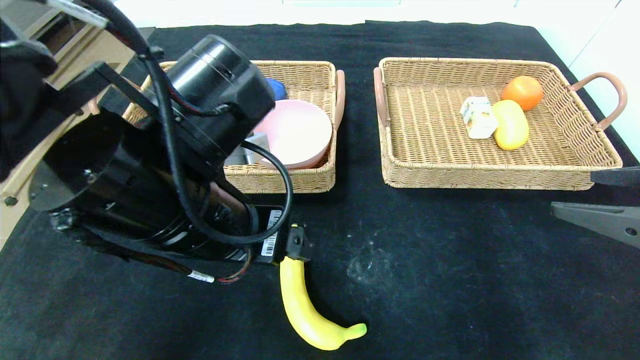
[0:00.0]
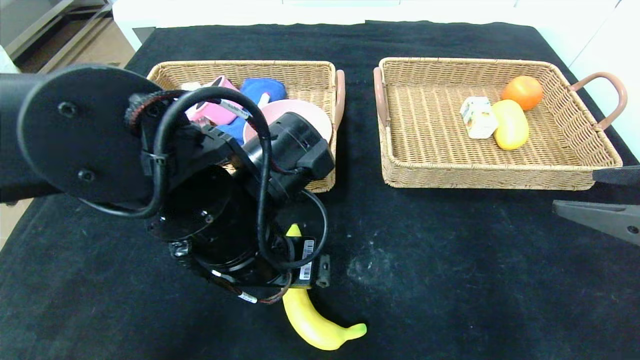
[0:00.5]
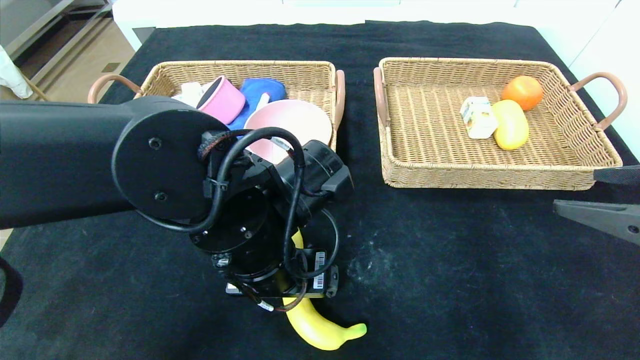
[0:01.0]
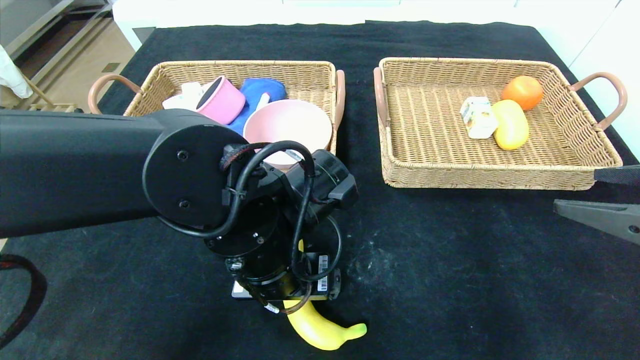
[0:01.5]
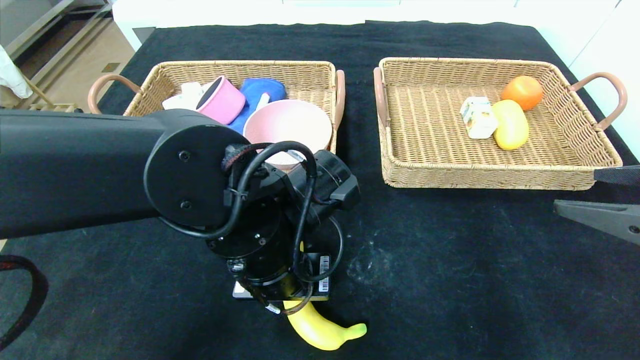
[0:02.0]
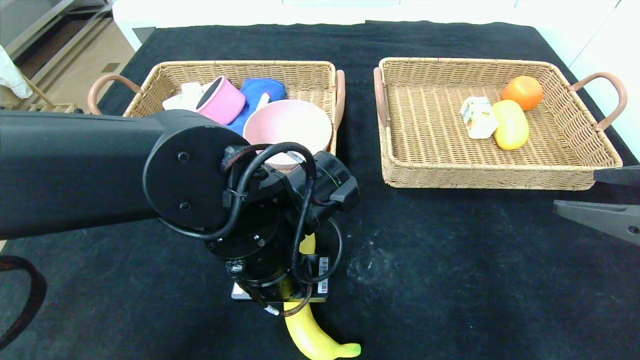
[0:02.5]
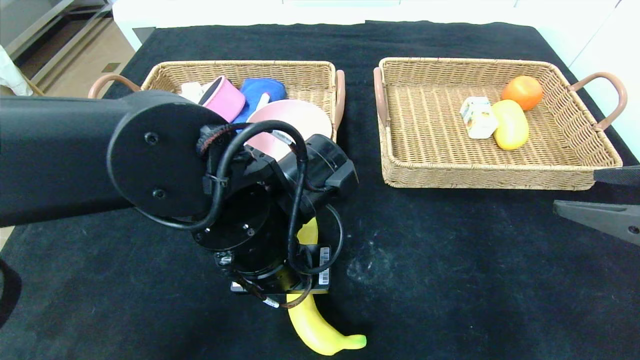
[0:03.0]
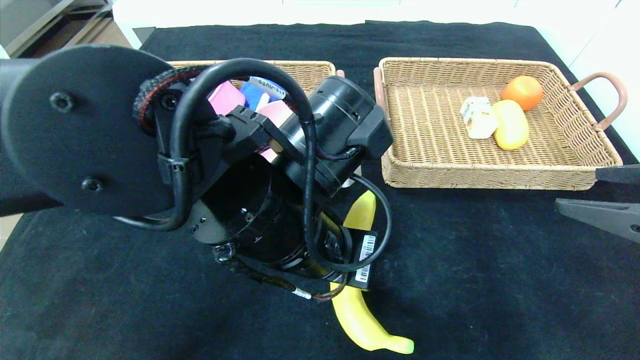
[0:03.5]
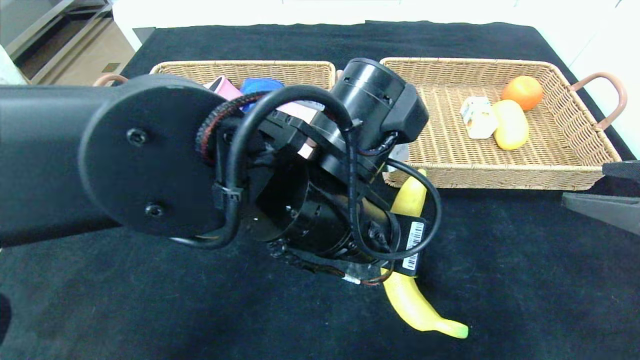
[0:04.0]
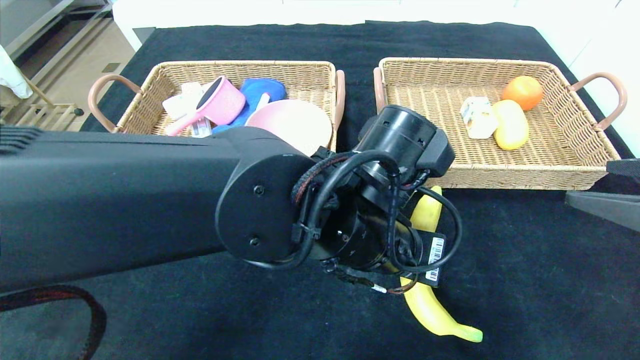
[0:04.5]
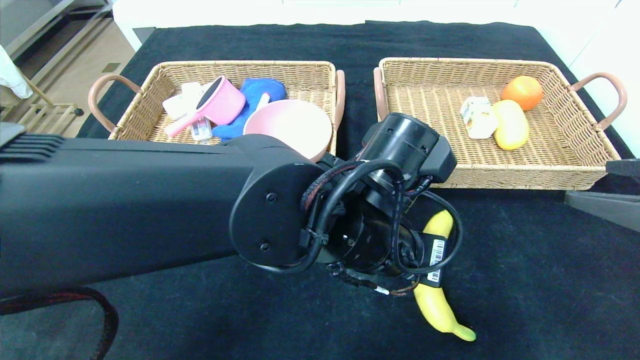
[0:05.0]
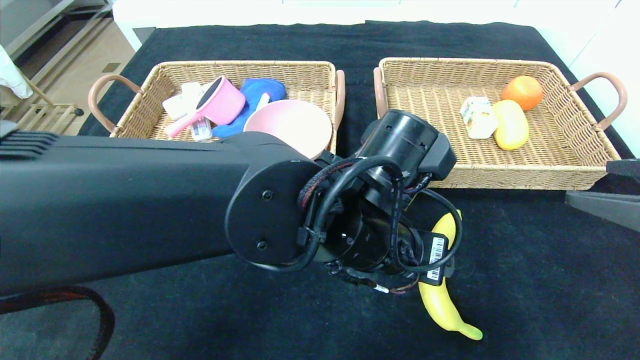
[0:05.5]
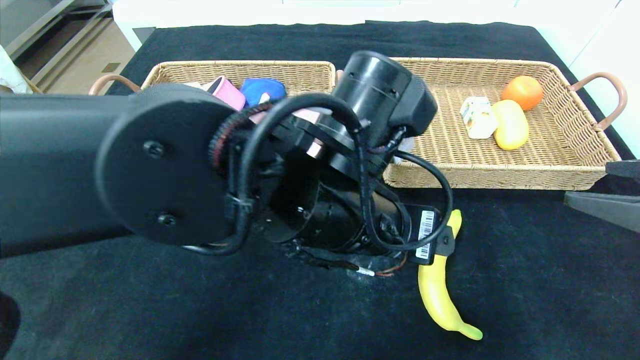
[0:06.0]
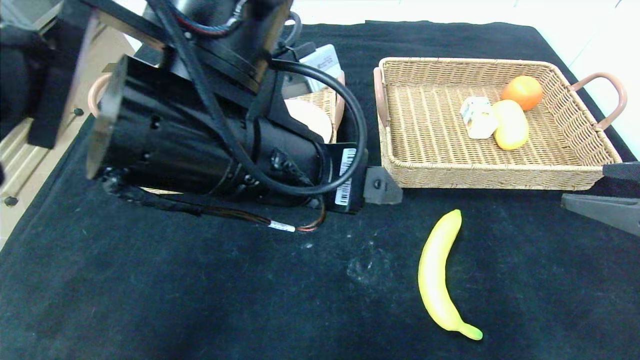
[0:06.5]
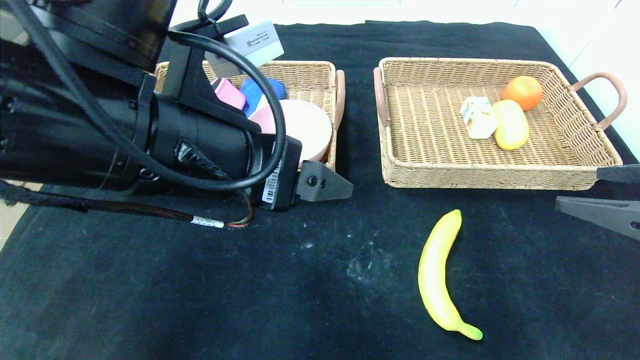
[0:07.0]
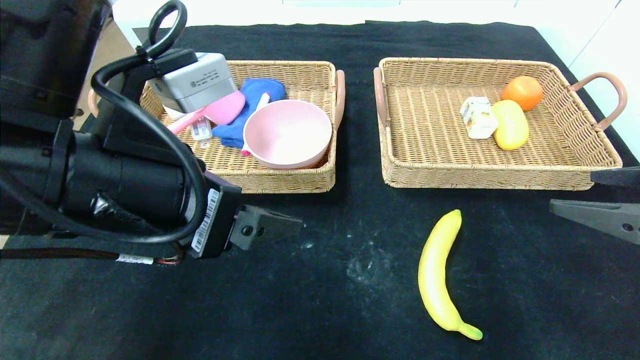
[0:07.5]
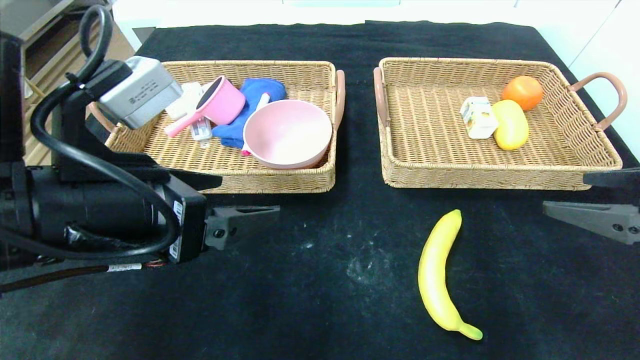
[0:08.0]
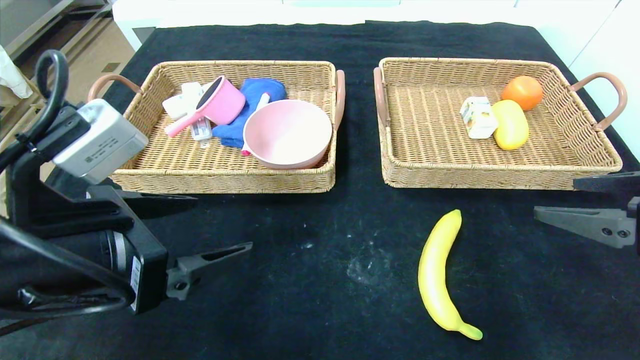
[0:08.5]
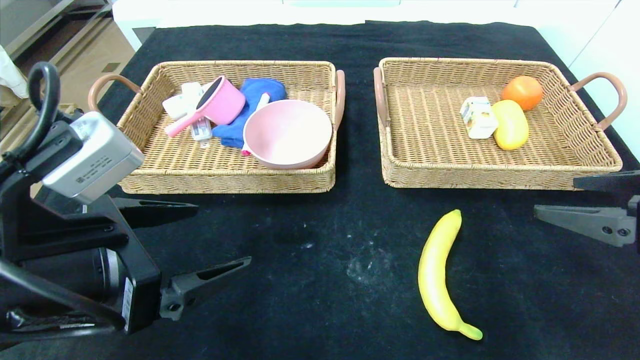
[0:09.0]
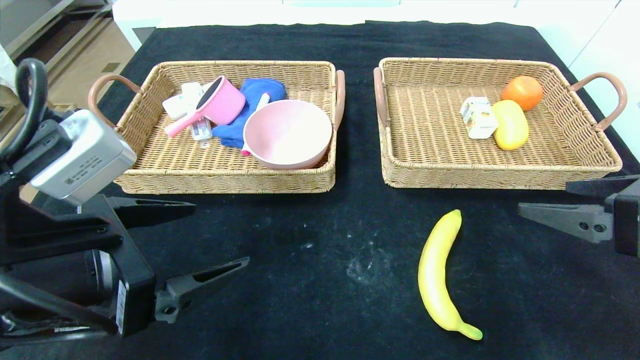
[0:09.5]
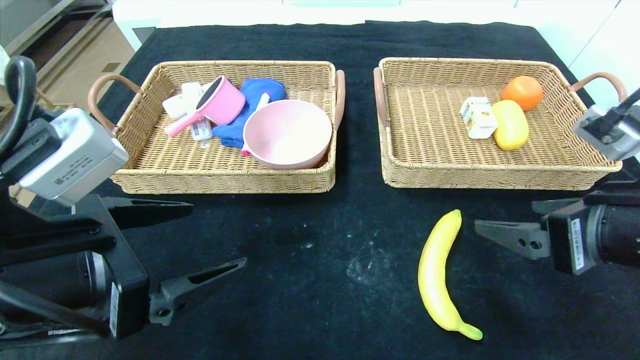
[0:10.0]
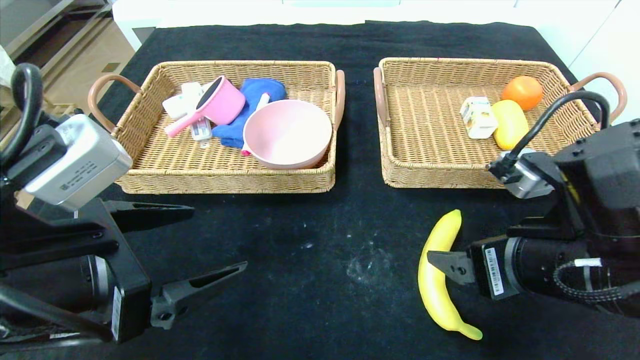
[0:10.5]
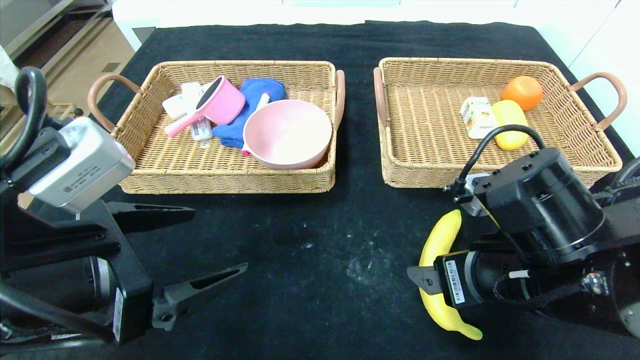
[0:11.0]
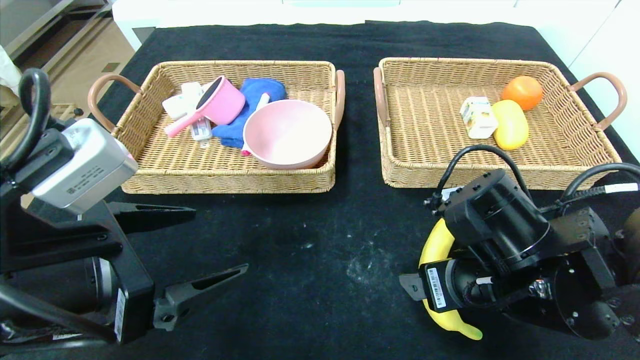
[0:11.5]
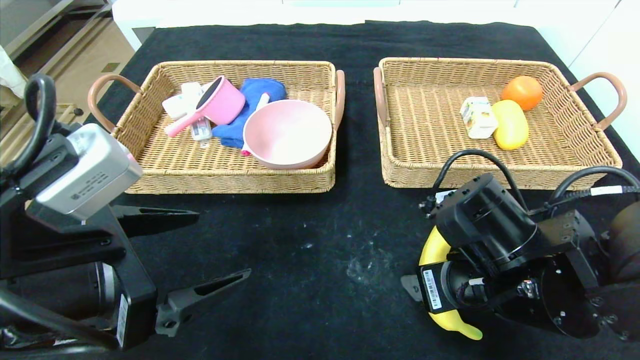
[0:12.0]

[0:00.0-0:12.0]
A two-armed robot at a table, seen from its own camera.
Step, 0:00.0 to 0:05.5: Place the banana in the center of the table.
0:00.0 to 0:02.0: The left gripper heads downward, covering approximately 5 cm, and closes its fingers.
0:02.0 to 0:04.0: The left gripper travels to the right and upward by roughly 10 cm.
0:04.0 to 0:06.0: The left gripper opens.
0:06.0 to 0:08.0: The left gripper moves to the left, some 20 cm.
0:08.0 to 0:10.0: The left gripper ends up about 5 cm from where it was. The right gripper moves to the left, about 10 cm.
0:10.0 to 0:12.0: The right gripper travels to the left and downward by roughly 10 cm.

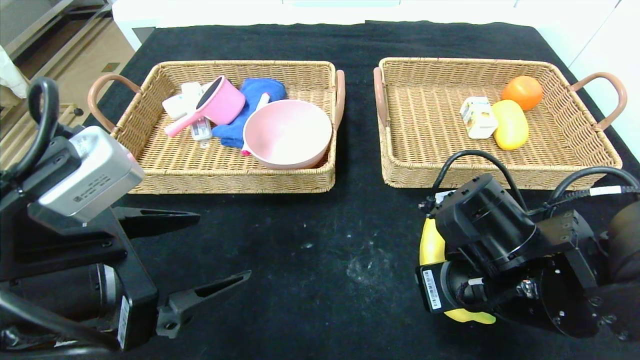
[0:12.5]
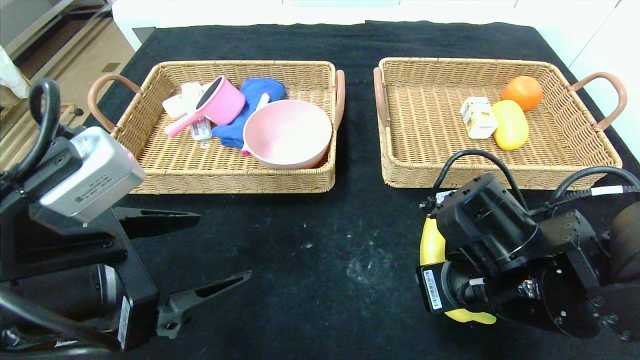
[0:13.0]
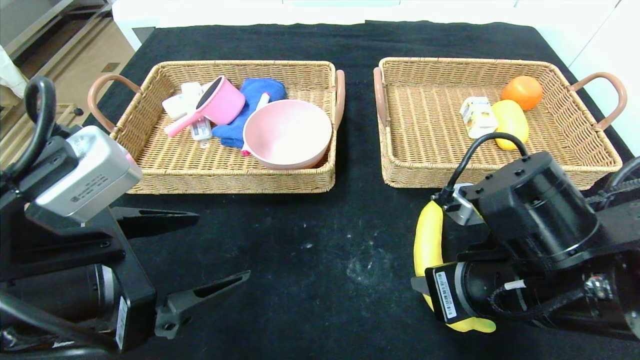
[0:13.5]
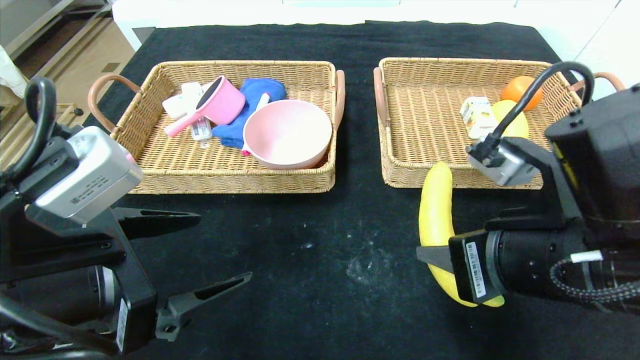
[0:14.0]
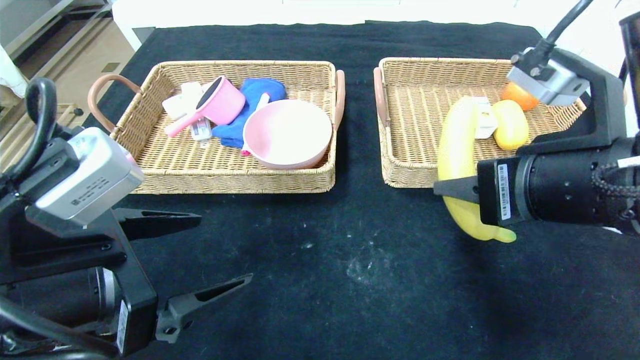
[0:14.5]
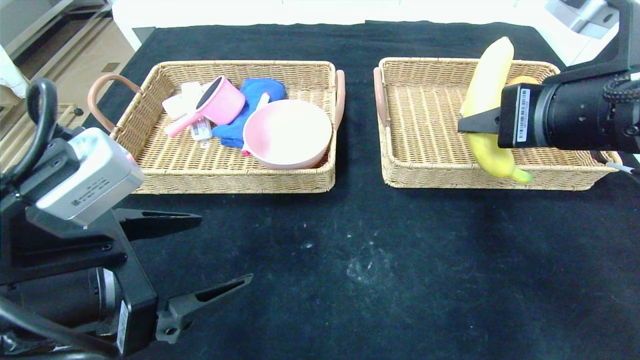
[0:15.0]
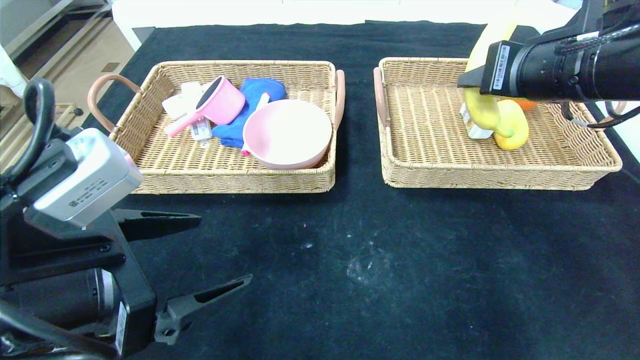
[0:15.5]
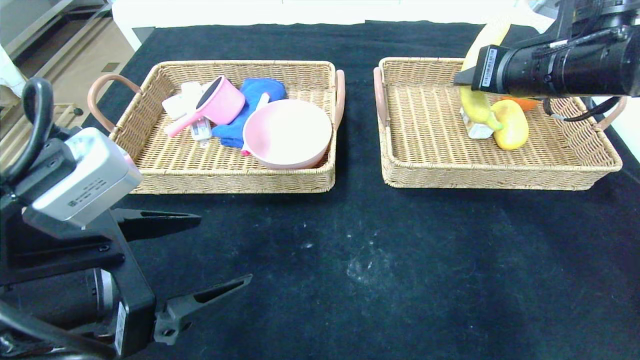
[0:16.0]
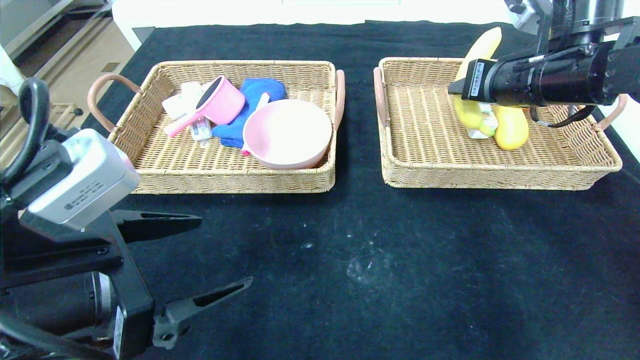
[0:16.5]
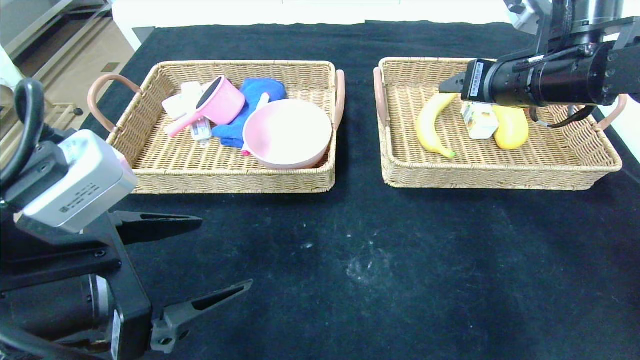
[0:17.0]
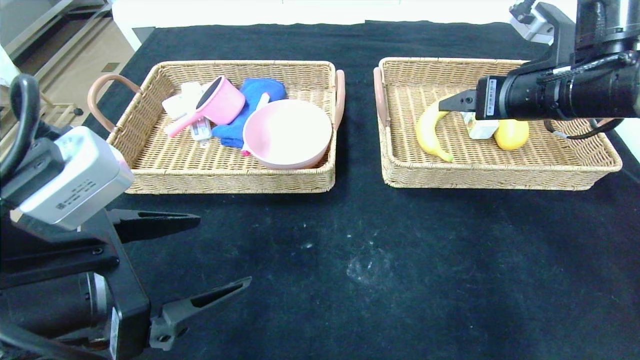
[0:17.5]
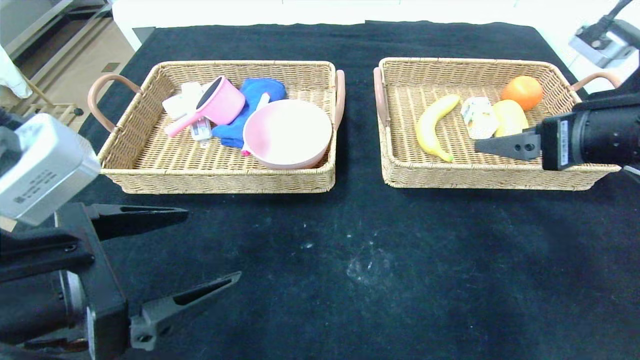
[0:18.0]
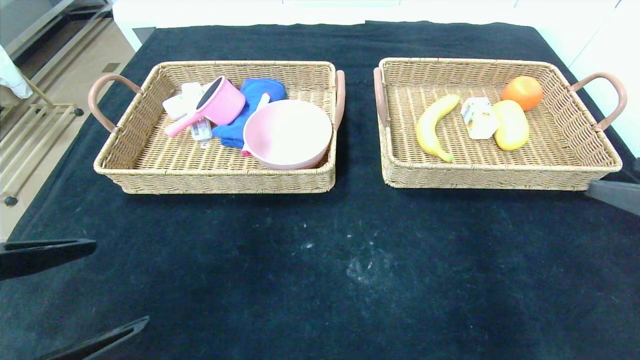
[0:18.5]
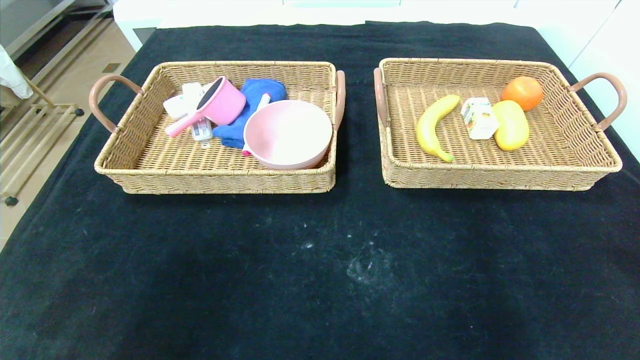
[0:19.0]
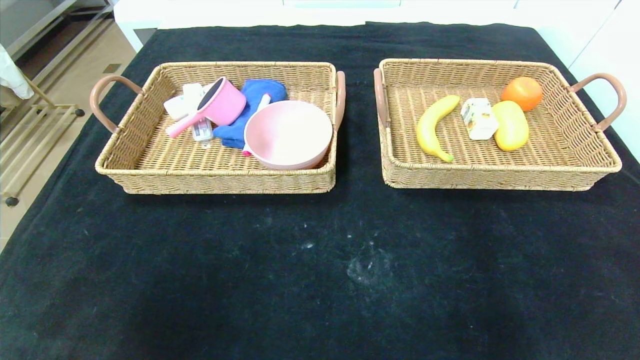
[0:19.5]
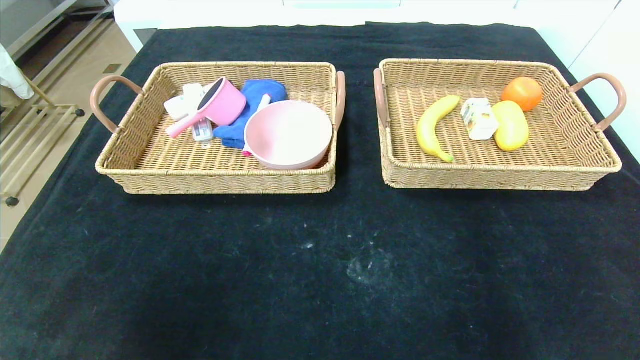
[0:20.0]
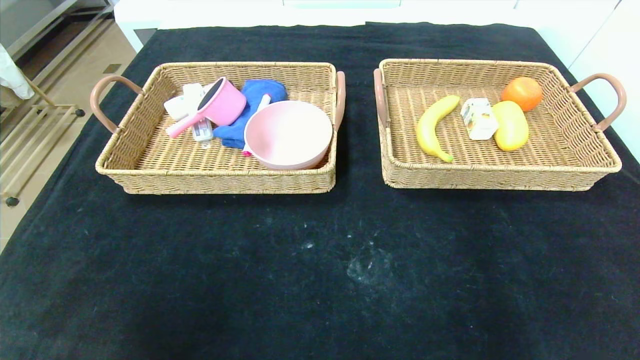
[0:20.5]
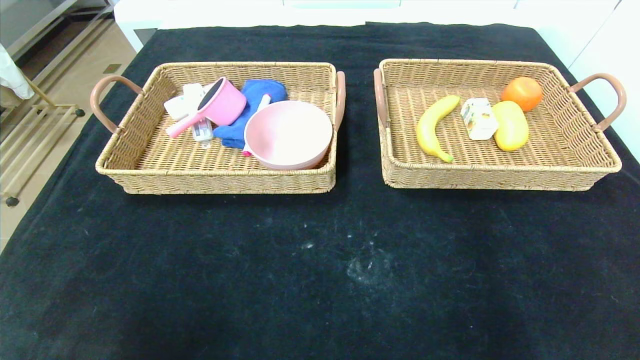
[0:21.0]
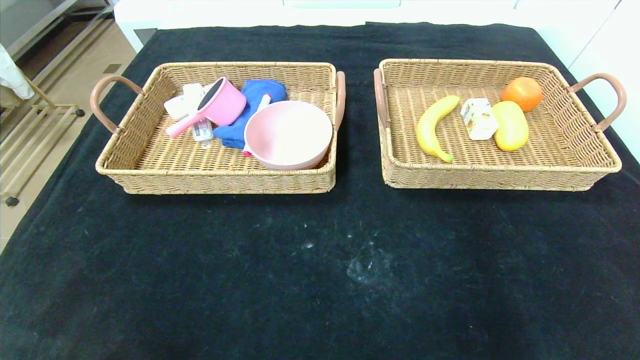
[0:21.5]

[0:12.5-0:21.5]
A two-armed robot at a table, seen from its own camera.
Step, 0:12.5 to 0:17.0: Grasp the banana and put it in the right basket.
0:12.5 to 0:14.5: The right gripper moves upward, about 10 cm.
0:14.5 to 0:17.0: The right gripper goes some 15 cm forward, and opens its fingers.
0:17.0 to 0:19.5: The right gripper moves backward, approximately 40 cm, and opens up. The left gripper goes some 20 cm backward and to the left.
